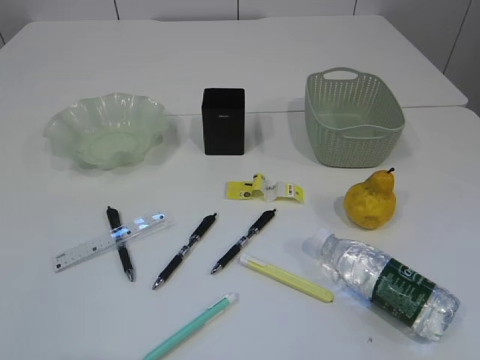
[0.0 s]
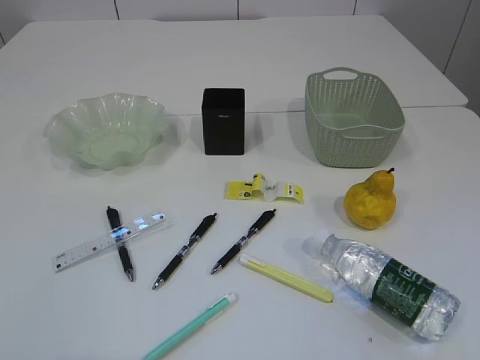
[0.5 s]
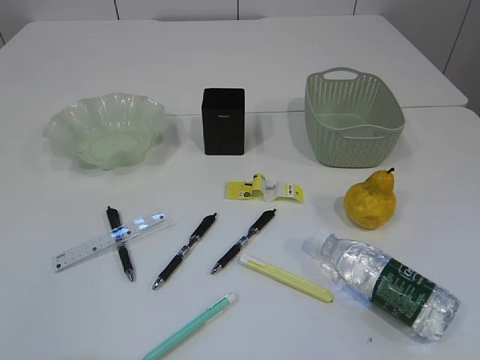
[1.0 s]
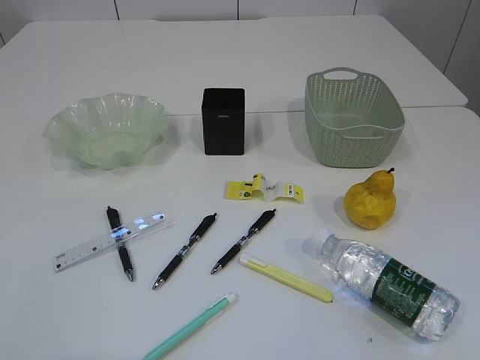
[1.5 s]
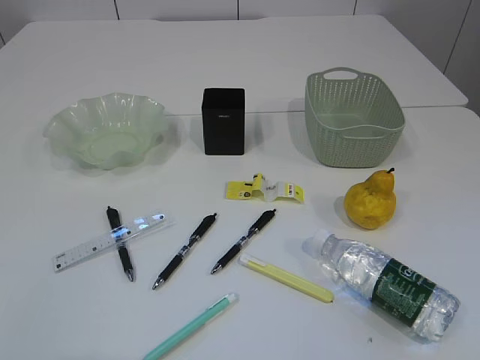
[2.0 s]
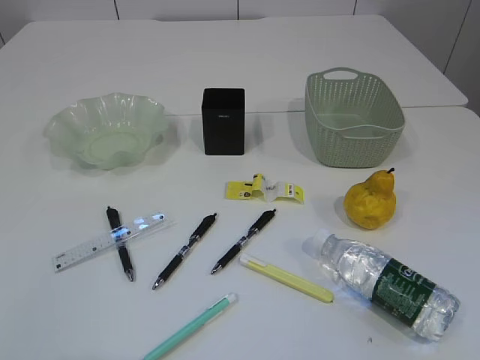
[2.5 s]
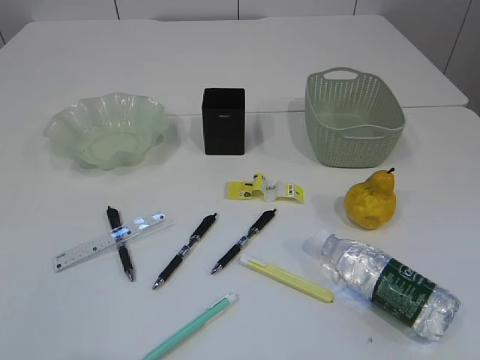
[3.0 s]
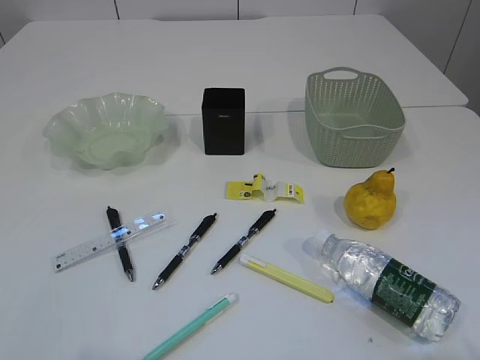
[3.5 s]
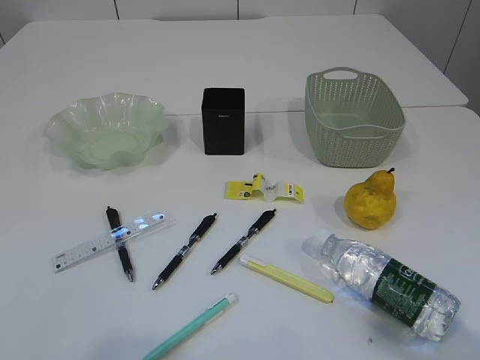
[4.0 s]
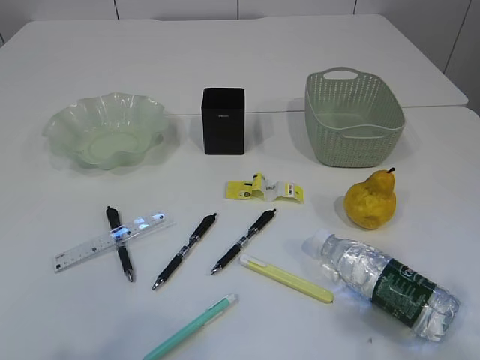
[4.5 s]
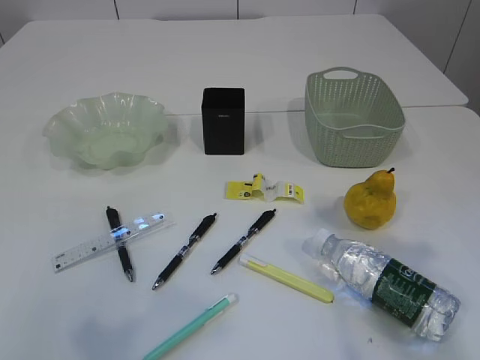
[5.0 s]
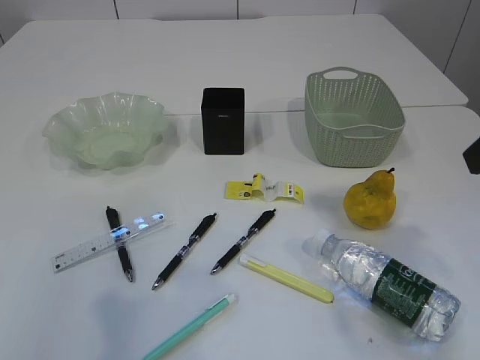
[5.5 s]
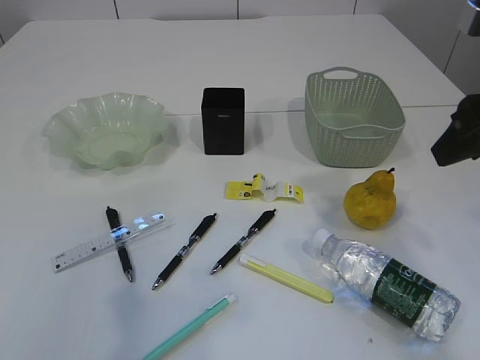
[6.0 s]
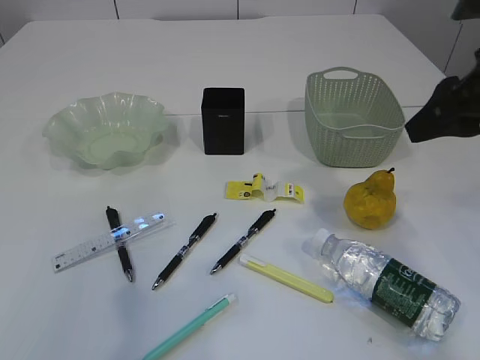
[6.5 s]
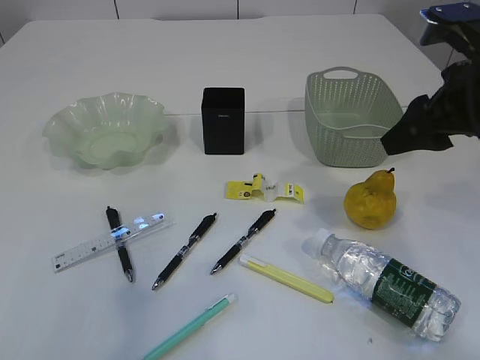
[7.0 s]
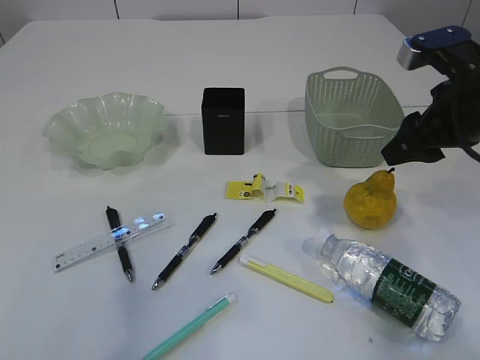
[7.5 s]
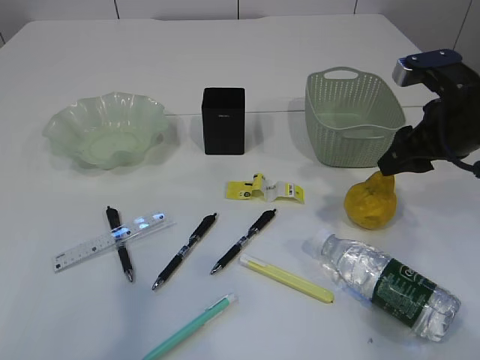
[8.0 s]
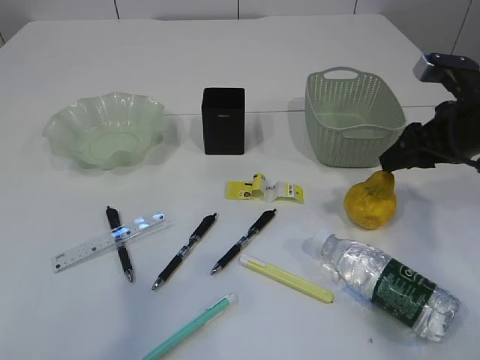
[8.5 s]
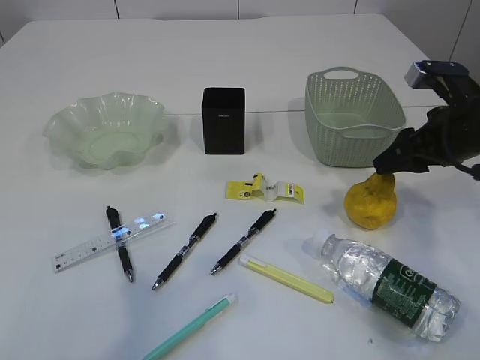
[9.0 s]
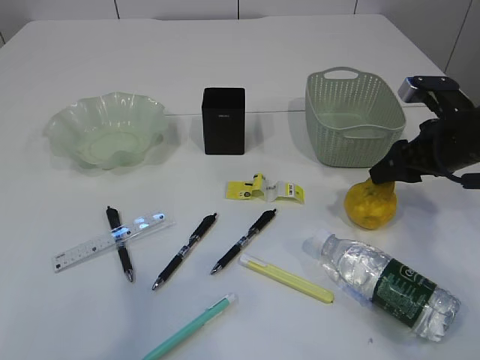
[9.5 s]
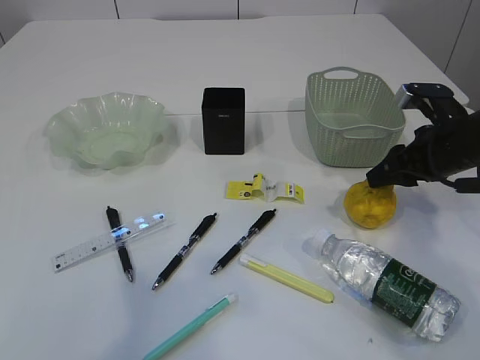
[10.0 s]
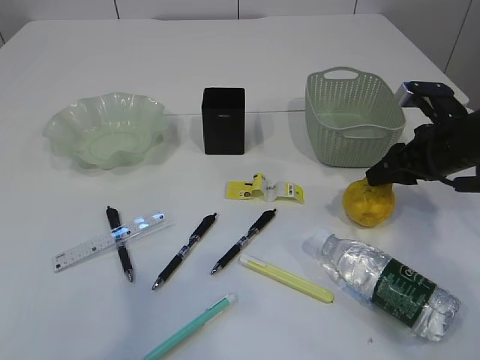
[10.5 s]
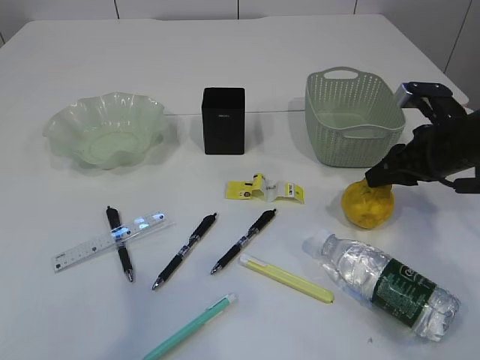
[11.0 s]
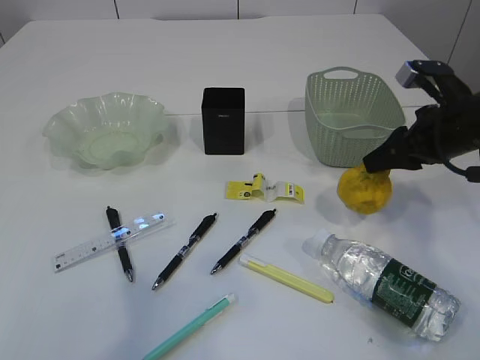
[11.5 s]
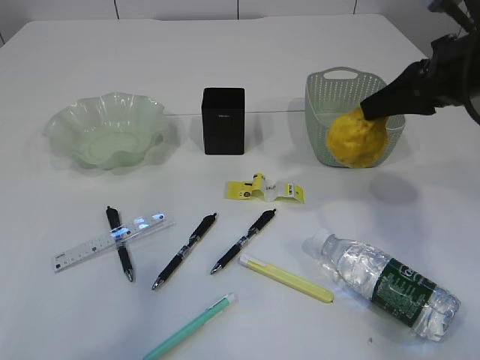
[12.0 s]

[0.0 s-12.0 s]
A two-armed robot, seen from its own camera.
2.0 to 4.0 s: The right gripper is displaced forward by approximately 5 cm.
4.0 to 6.0 s: The right gripper travels forward by some 20 cm. Meanwhile the left gripper moves forward, approximately 5 cm.
6.0 to 8.0 s: The right gripper is displaced downward and forward by roughly 10 cm.
8.0 to 10.0 s: The right gripper travels downward by about 5 cm.
10.0 to 12.0 s: The right gripper moves upward, roughly 10 cm.

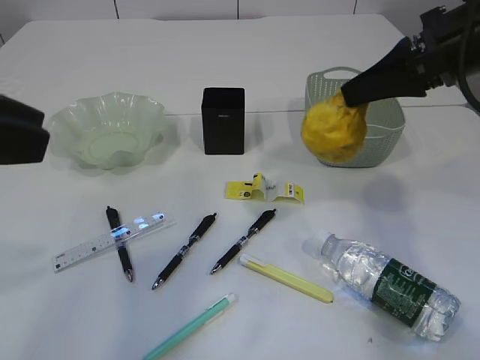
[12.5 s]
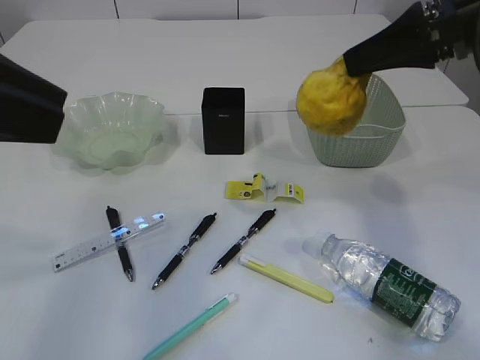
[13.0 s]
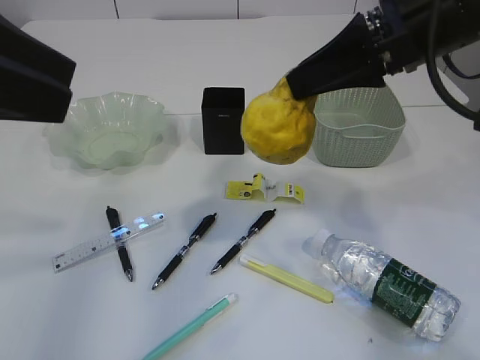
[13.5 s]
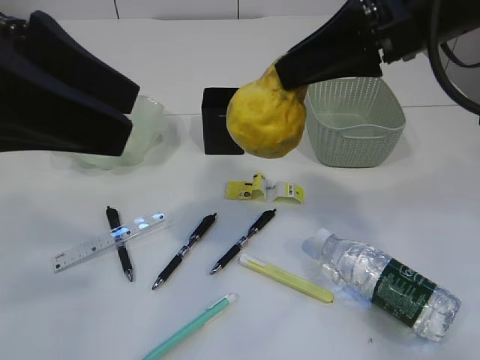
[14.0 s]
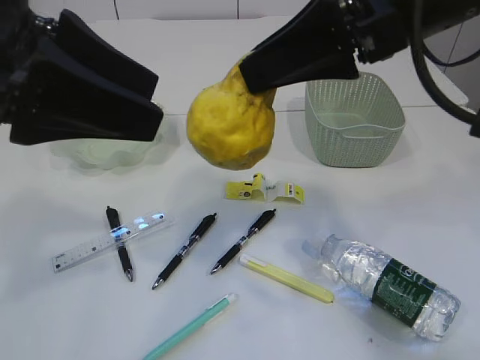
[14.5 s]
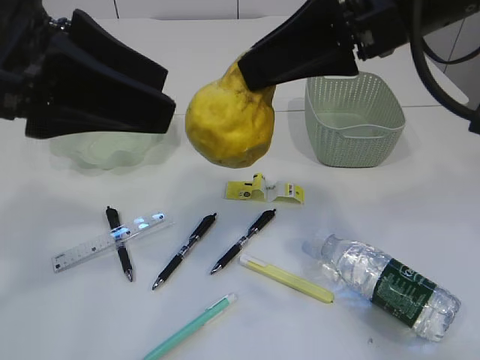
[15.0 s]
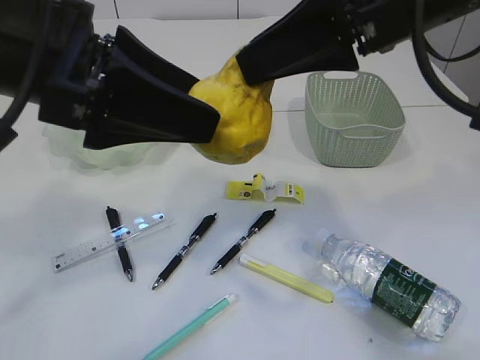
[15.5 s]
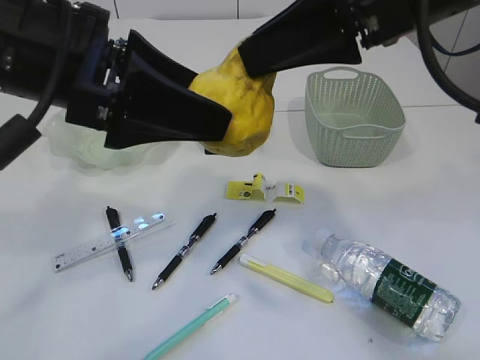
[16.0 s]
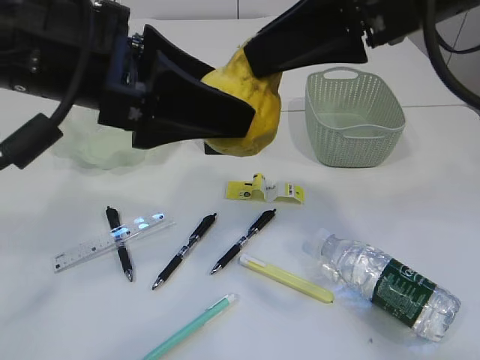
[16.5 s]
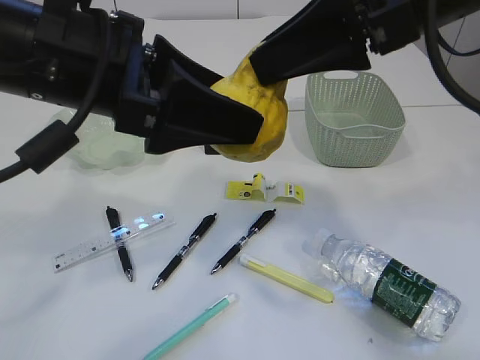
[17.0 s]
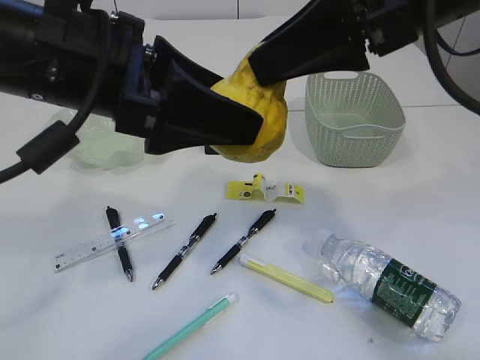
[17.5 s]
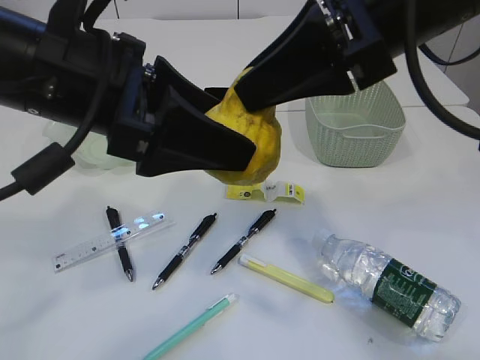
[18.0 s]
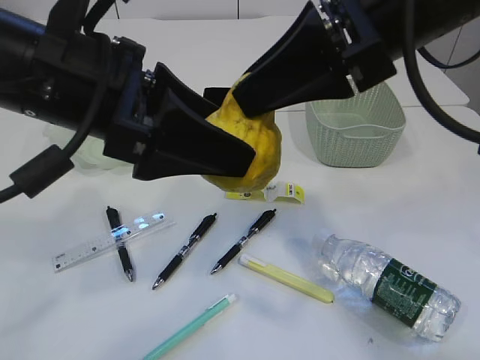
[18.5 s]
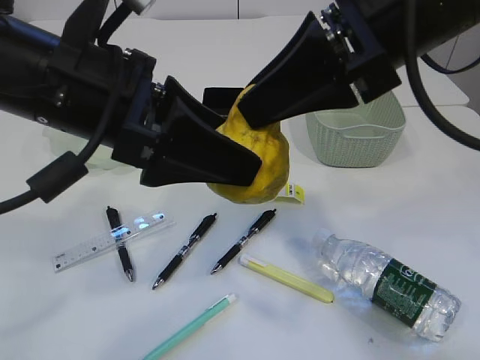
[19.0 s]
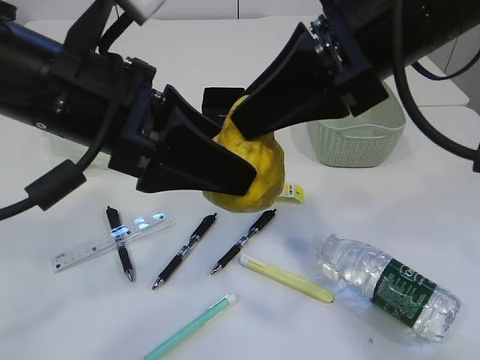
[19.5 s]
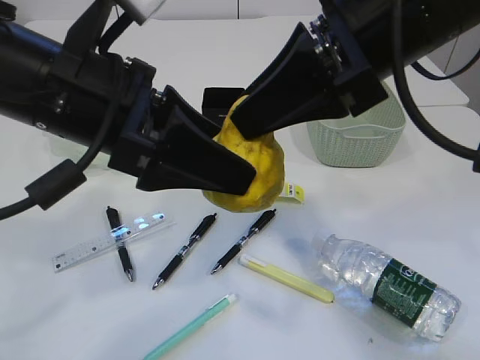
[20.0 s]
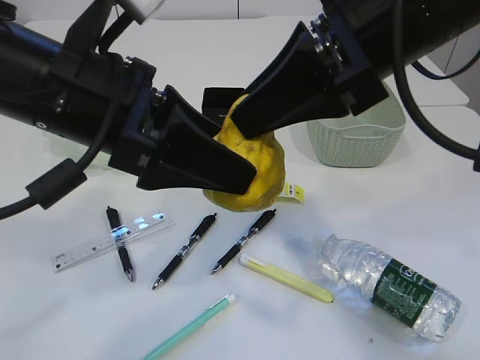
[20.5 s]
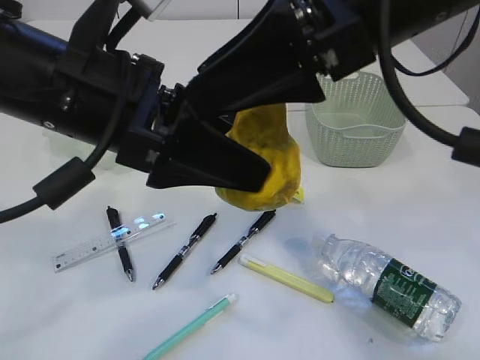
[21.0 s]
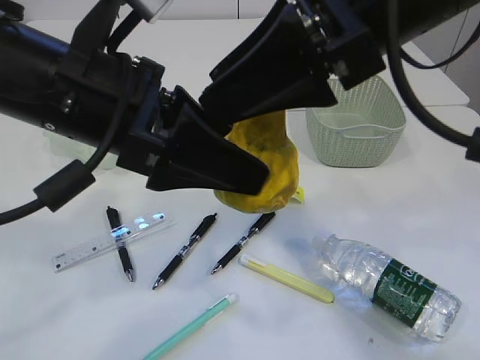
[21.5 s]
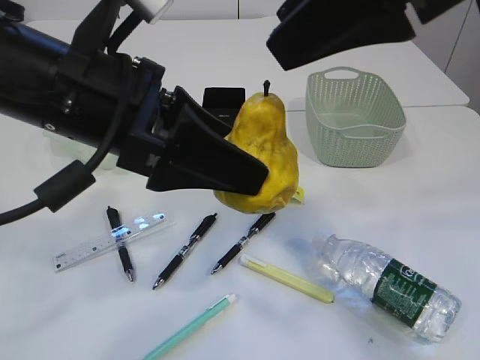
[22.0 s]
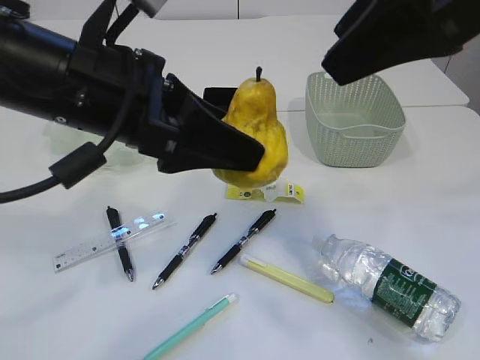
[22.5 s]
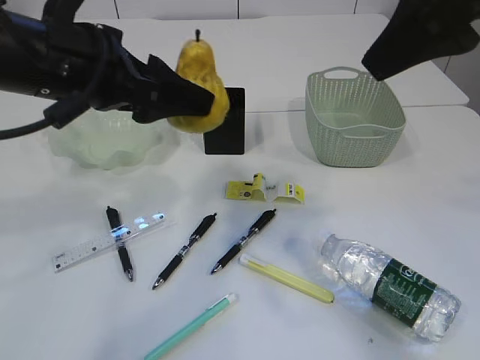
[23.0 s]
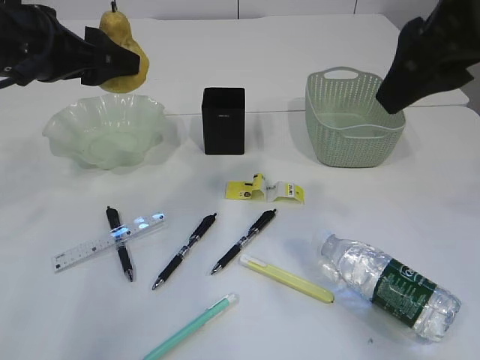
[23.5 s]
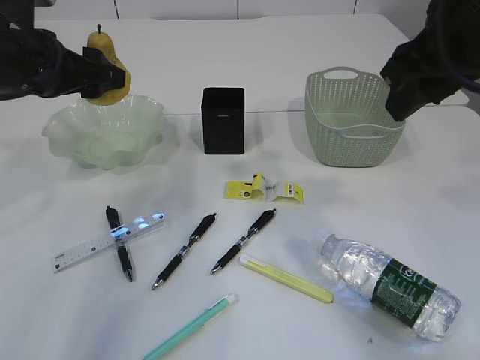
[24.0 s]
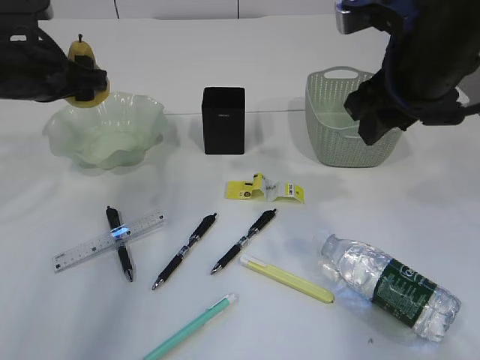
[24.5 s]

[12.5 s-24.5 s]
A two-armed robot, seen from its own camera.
Step, 12.5 to 22.5 s: Hand over the pear.
12.5 to 14.5 s: The left gripper heads to the right, covering roughly 5 cm, and opens up; the right gripper shifts approximately 15 cm to the left, backward and upward.
14.5 to 16.5 s: The left gripper changes place by about 5 cm.
18.5 to 20.5 s: The two grippers keep their place.
20.5 to 22.5 s: The right gripper travels upward by roughly 5 cm, and opens.
22.5 to 24.5 s: The left gripper moves forward, to the left and downward, approximately 20 cm, while the right gripper shifts approximately 15 cm downward and forward.

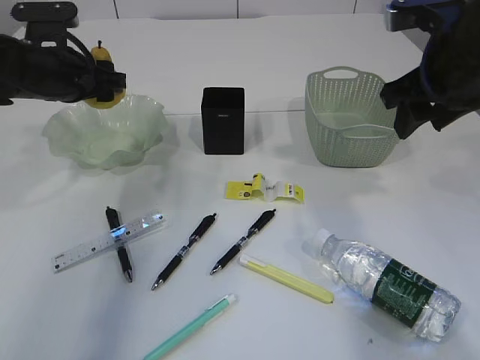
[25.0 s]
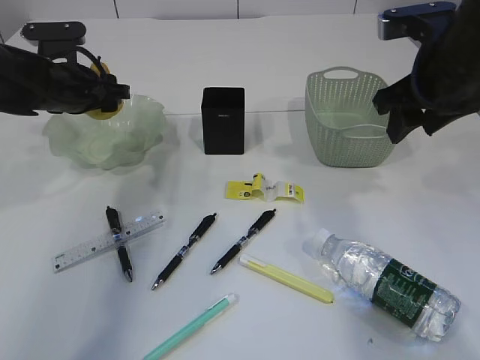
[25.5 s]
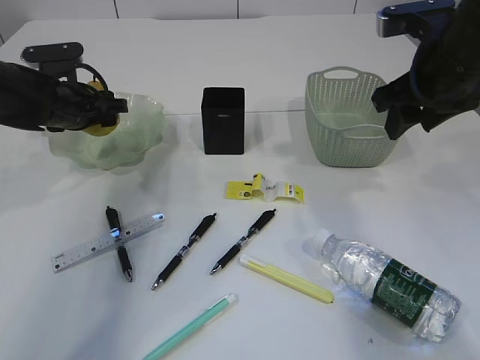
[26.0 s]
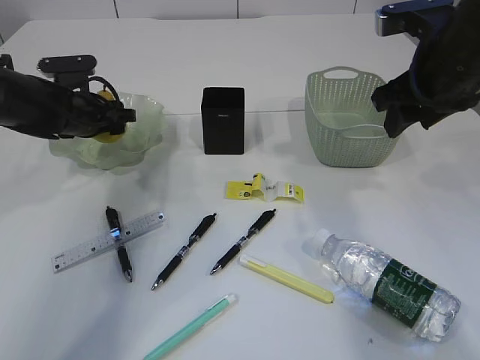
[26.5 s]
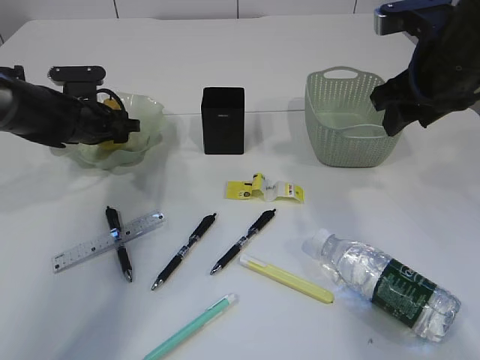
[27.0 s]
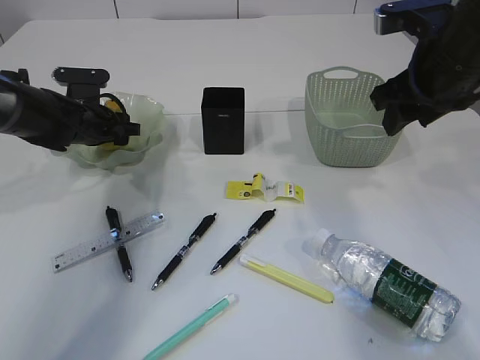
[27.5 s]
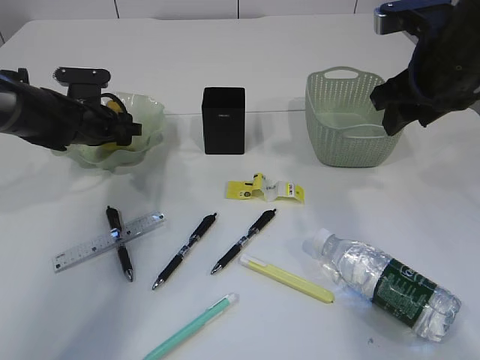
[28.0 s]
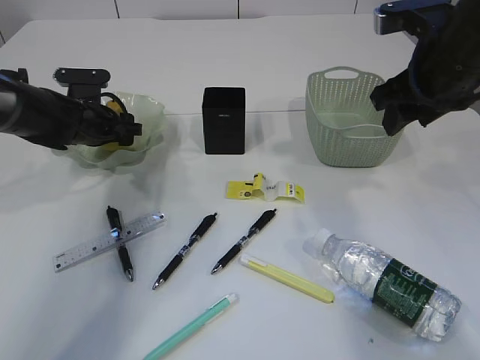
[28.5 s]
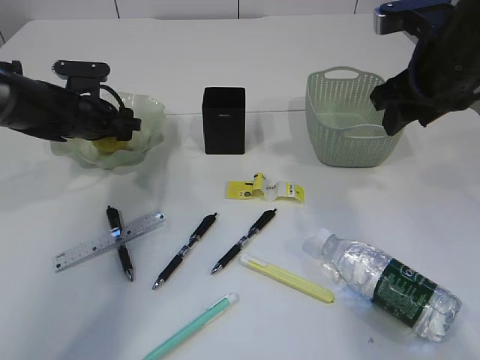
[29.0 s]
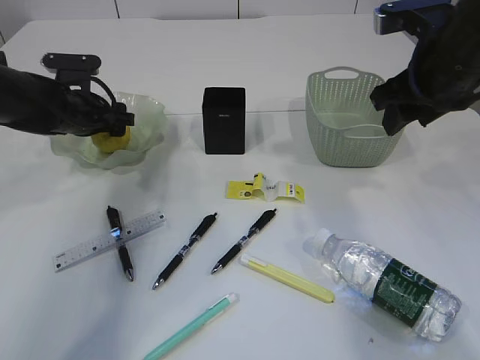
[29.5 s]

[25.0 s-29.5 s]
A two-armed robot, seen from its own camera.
25.0 to 27.0 s: The left gripper goes approximately 10 cm downward and forward.
27.0 to 29.5 s: The grippers stay close to where they were, moving slightly.
